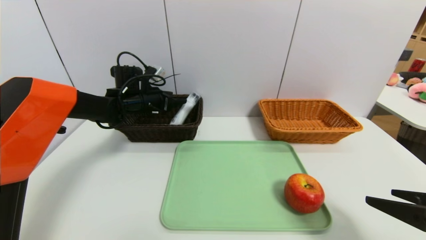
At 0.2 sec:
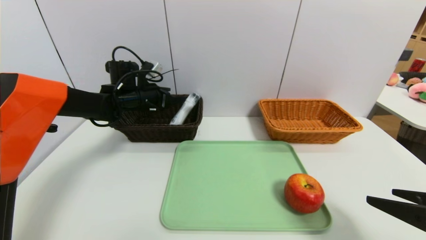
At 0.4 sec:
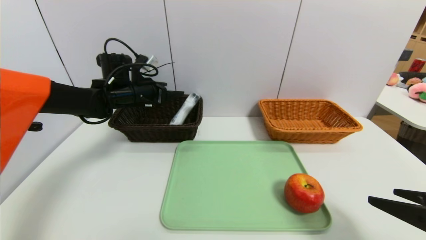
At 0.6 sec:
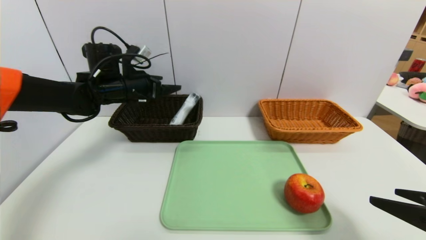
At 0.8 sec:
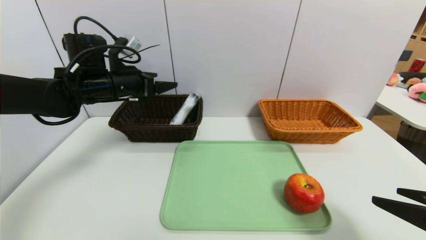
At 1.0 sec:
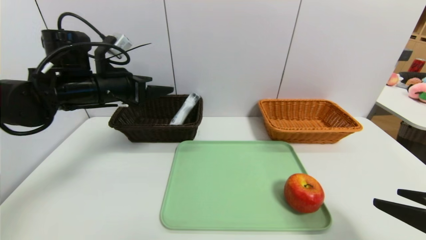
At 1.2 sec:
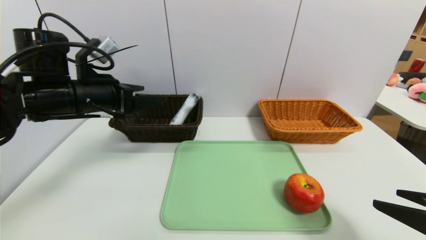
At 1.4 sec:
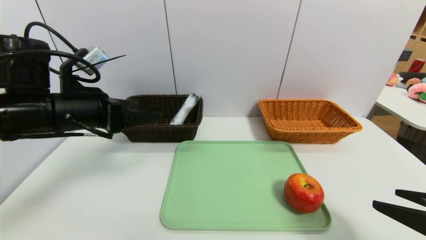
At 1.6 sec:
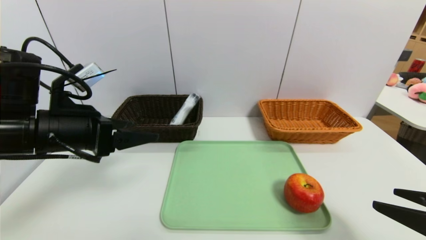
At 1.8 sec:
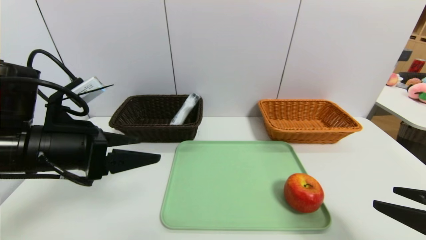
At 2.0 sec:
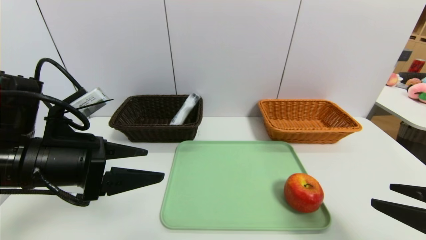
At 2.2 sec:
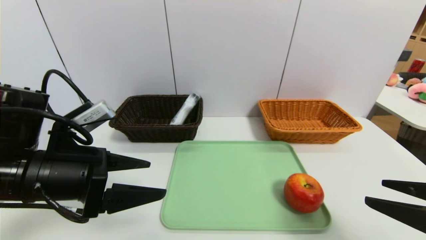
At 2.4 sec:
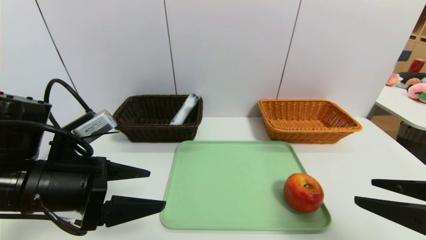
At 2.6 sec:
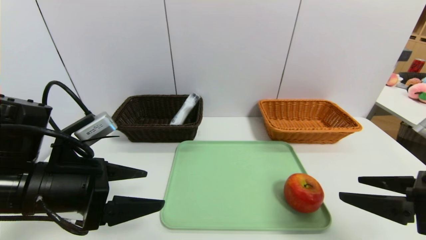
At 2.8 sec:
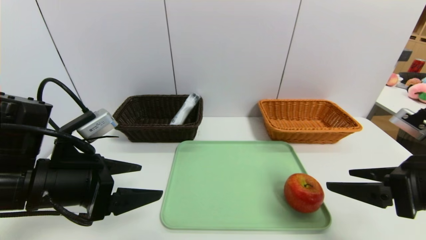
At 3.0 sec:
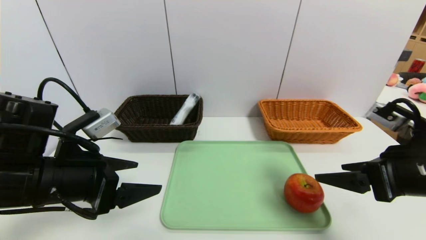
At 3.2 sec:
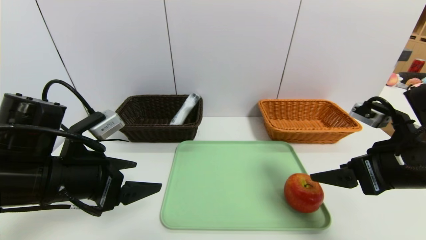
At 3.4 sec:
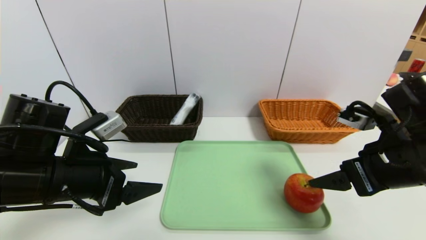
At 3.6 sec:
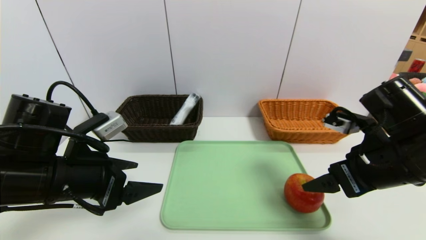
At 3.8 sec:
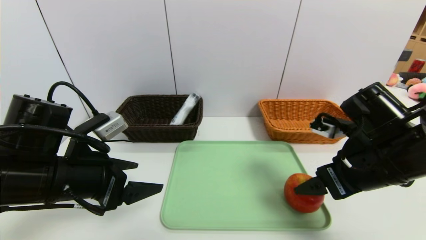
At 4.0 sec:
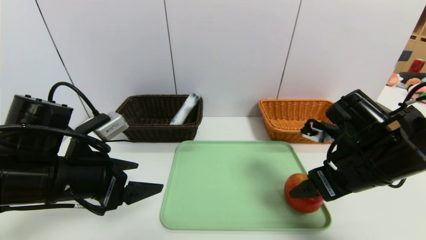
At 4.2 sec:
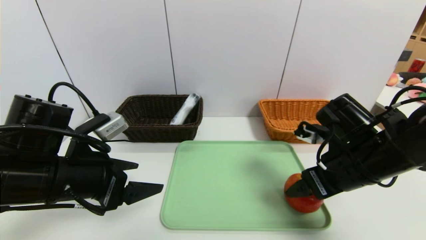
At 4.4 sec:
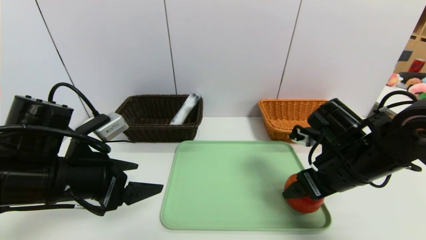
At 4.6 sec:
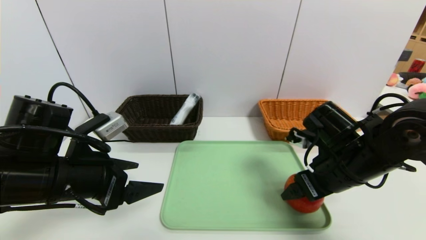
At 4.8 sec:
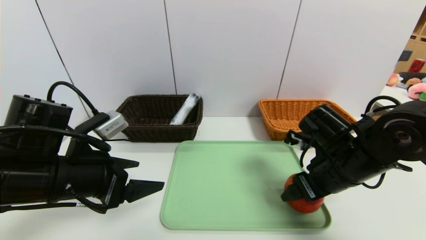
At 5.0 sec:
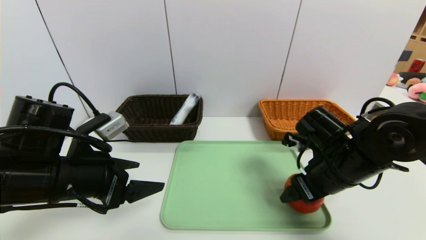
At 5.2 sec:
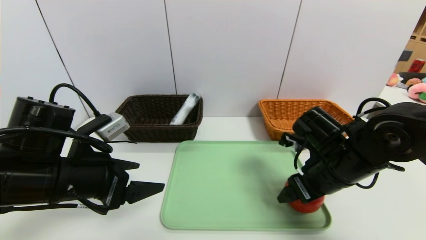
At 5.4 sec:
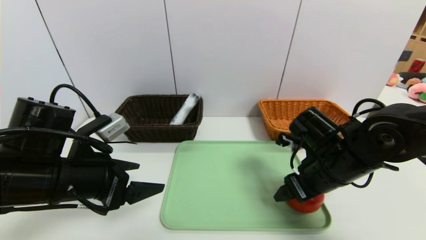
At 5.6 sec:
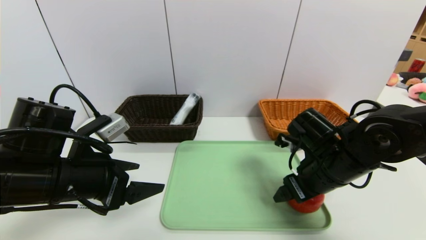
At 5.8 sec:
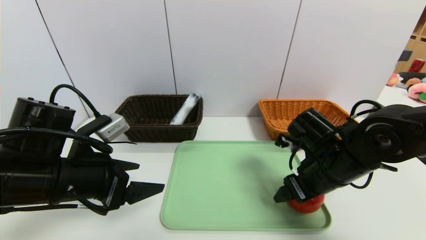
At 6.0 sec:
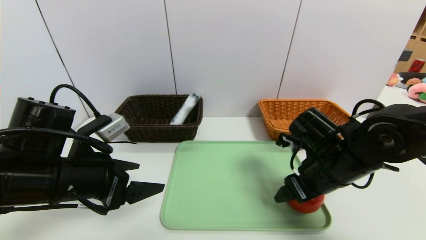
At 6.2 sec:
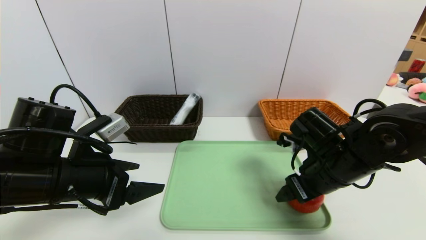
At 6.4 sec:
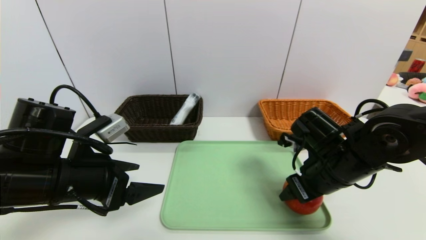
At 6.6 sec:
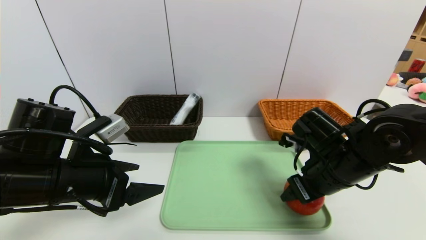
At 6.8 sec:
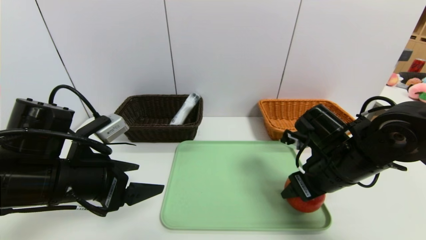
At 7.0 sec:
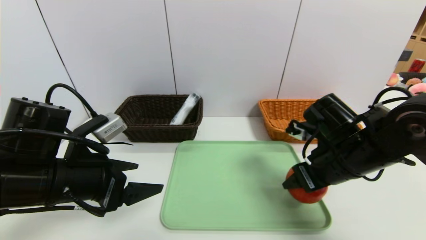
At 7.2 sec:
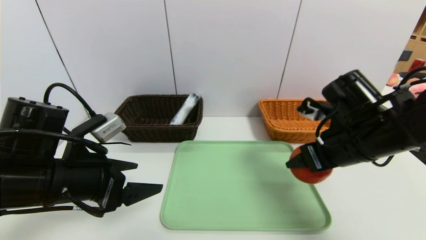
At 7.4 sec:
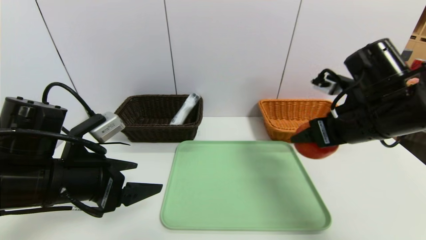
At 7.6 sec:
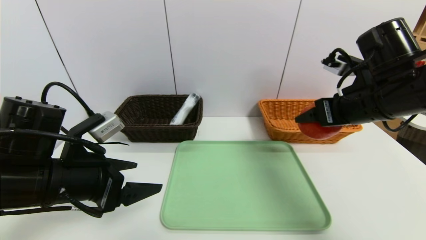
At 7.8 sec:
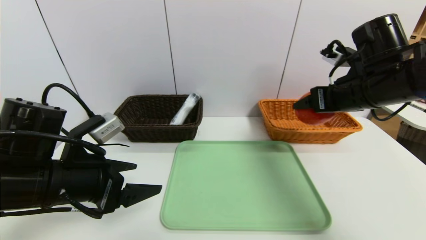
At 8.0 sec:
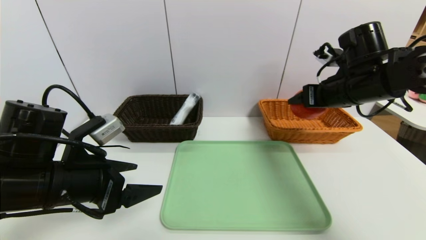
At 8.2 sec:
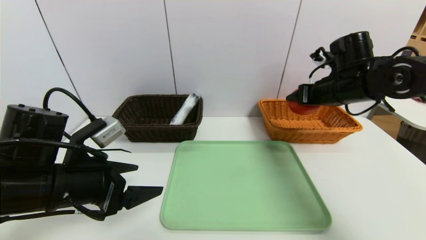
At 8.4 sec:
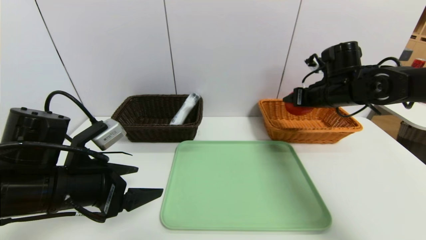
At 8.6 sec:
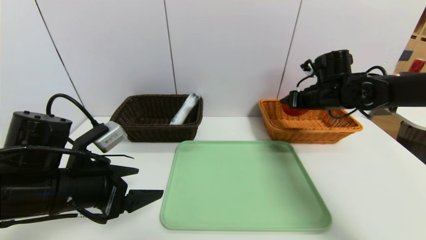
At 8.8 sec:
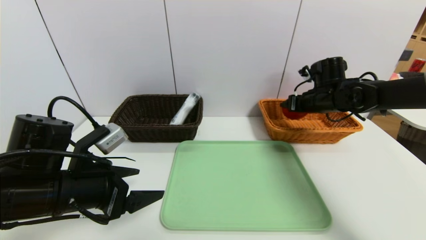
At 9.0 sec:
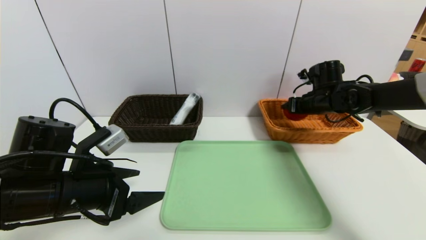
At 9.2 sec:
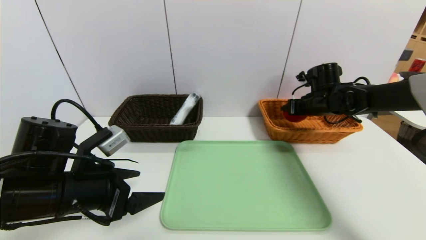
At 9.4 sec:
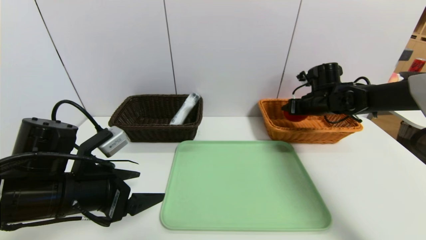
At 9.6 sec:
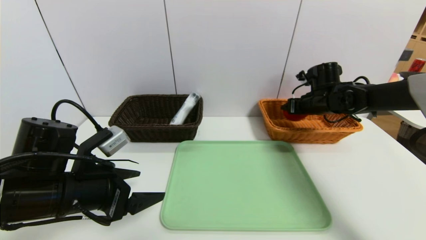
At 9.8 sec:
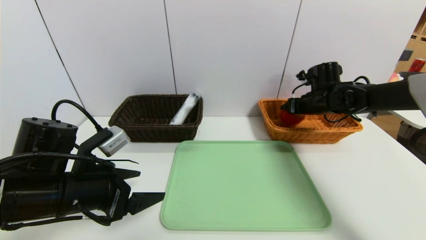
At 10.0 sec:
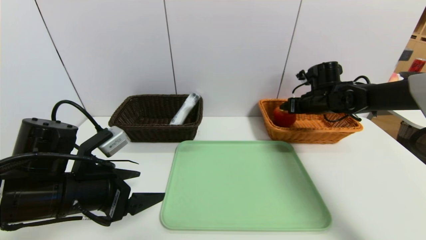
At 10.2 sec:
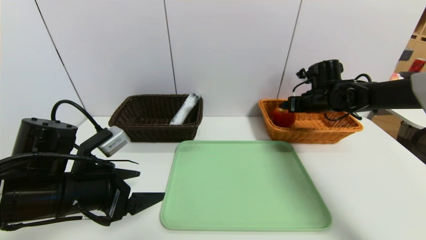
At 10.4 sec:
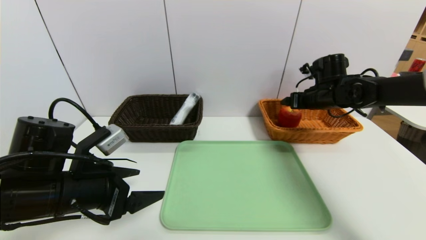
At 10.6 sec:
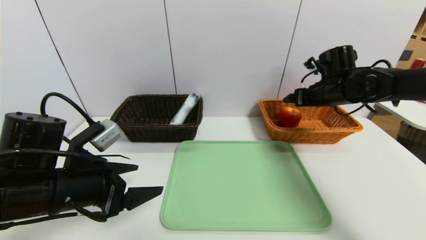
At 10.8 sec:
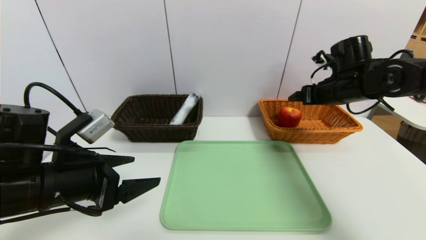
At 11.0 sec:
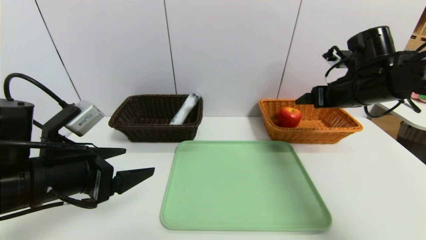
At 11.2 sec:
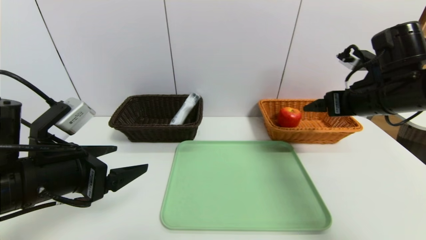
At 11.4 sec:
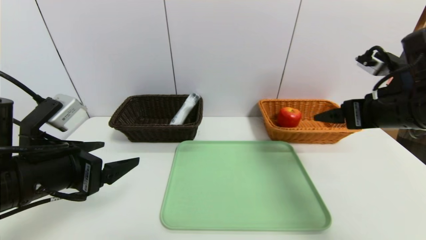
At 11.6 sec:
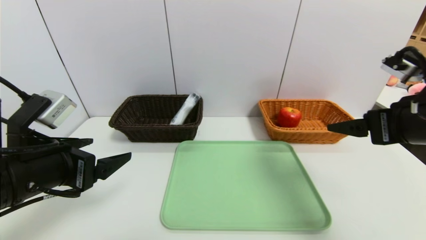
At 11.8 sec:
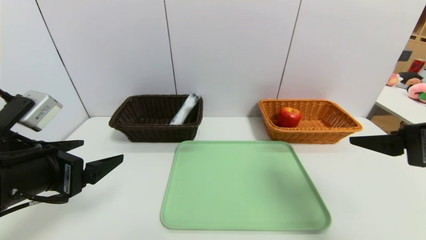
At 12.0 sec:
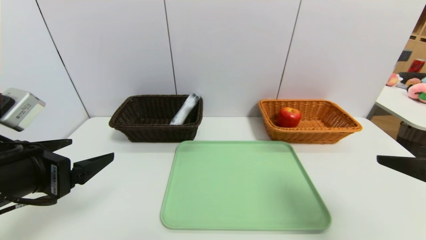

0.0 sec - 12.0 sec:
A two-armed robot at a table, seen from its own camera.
Task of the whole recording: place the food in the right basket with the right gripper, and place the non food items in the left basket with the left gripper.
Step, 0.2 sec - 10.0 sec: Grasp the apple and put it in the right basket.
0.0 sec - 1.6 sec: The left gripper heads backward, covering roughly 25 cm.
1.6 sec - 3.0 sec: The right gripper moves forward, about 10 cm. Meanwhile the left gripper moves about 5 cm.
3.0 sec - 4.4 sec: The right gripper heads forward and to the left, covering about 10 cm.
4.4 sec - 6.0 sec: There are only small adjustments of the grippers.
6.0 sec - 7.6 sec: The right gripper shifts approximately 10 cm upward, and closes.
7.6 sec - 9.0 sec: The right gripper heads forward and downward, covering approximately 20 cm.
9.0 sec - 10.4 sec: The right gripper opens its fingers.
10.4 sec - 12.0 sec: The right gripper travels backward by approximately 35 cm. The left gripper is displaced upward and backward by approximately 10 cm.

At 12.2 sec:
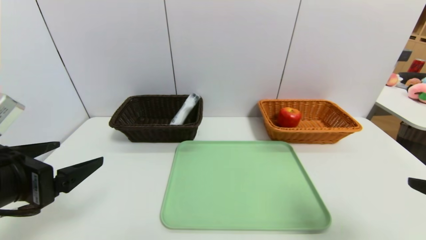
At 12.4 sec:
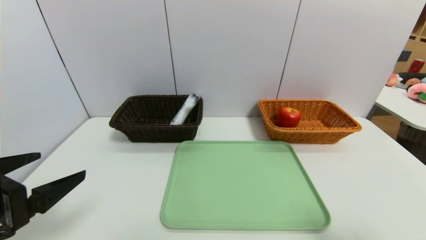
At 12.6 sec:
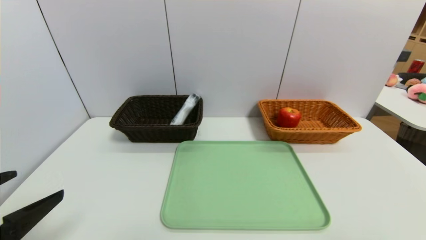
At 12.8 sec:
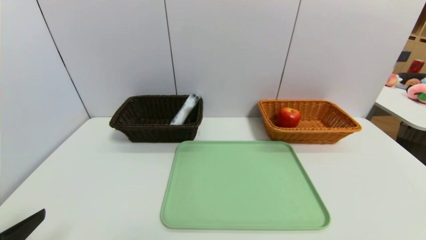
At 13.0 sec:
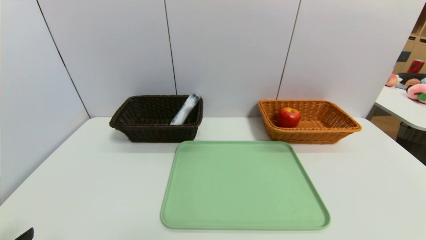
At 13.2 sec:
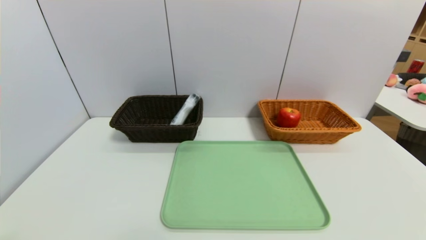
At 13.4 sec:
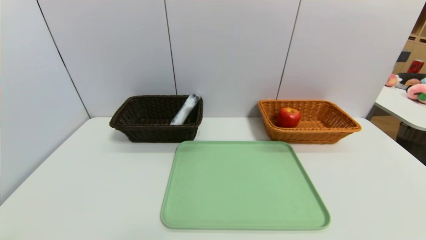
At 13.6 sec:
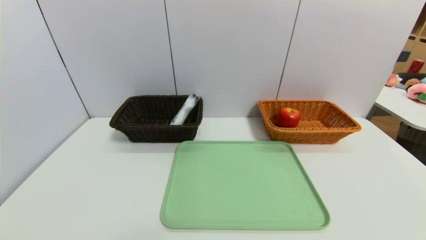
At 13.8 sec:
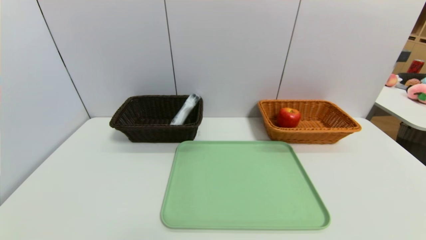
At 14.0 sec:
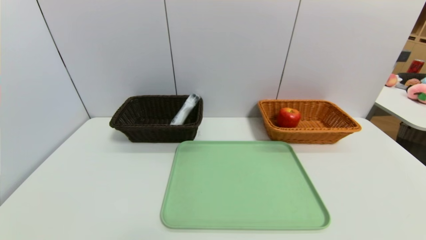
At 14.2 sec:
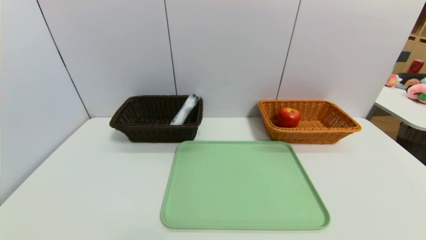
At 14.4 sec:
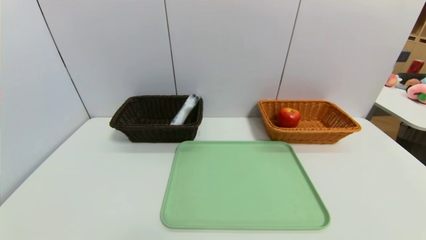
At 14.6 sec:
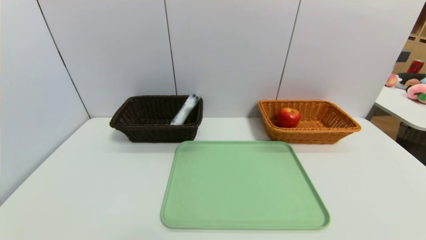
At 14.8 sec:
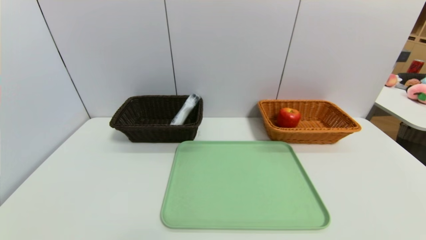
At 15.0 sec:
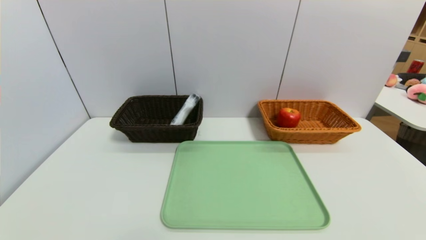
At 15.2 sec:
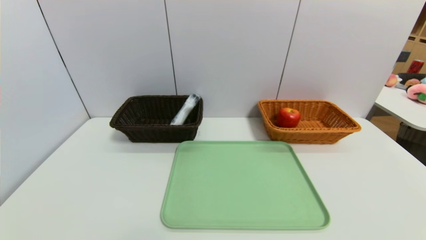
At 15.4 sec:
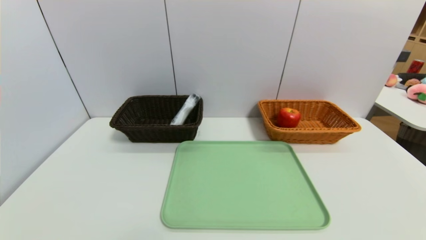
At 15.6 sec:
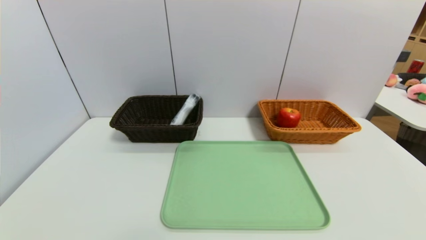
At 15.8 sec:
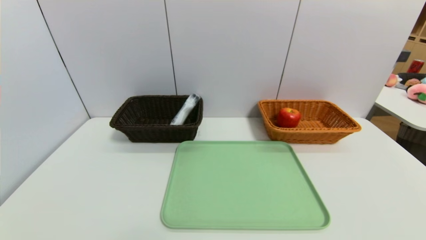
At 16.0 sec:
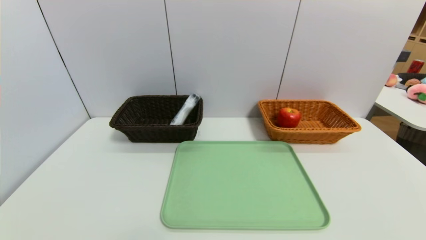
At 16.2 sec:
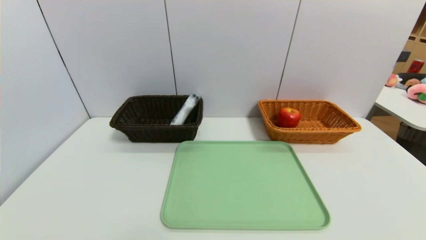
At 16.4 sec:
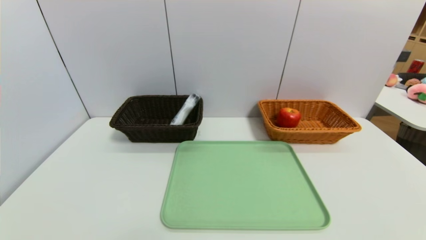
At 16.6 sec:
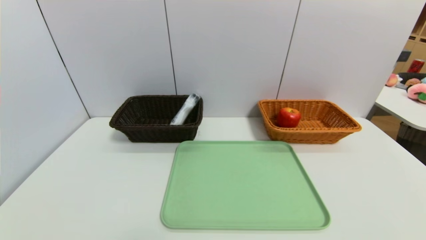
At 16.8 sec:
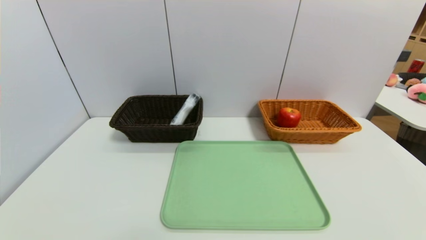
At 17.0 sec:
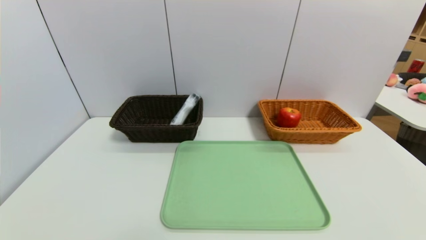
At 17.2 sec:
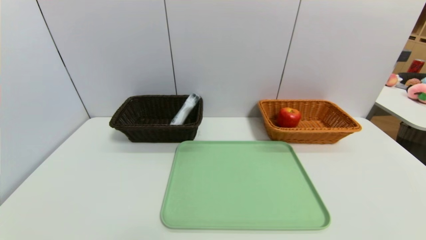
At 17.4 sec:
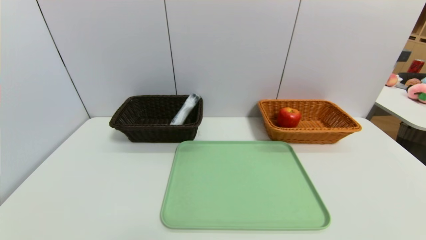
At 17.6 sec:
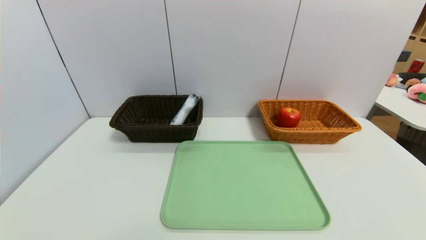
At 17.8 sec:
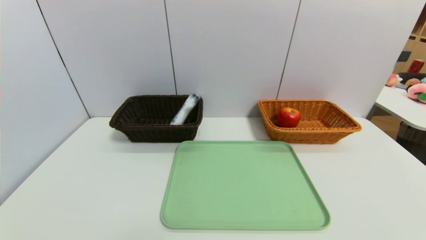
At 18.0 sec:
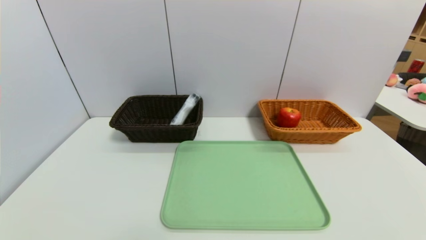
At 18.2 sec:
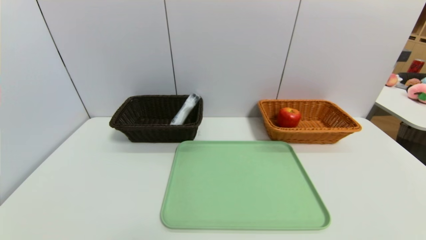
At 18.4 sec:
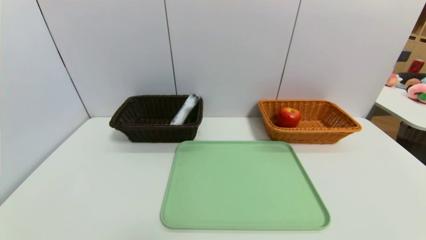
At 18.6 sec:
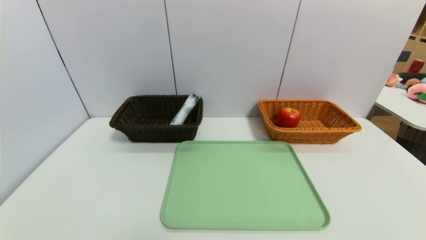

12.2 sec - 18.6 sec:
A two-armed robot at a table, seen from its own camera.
Task of the whole recording: place the food in the right basket with the right gripper, and place the non food items in the left basket with the left gripper.
12.2 sec - 13.8 sec: Both grippers travel together backward and downward, about 15 cm.
17.0 sec - 18.6 sec: The two grippers keep their place.
